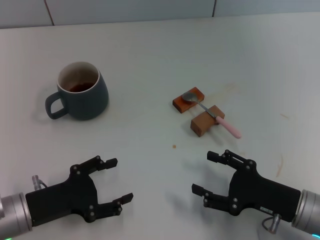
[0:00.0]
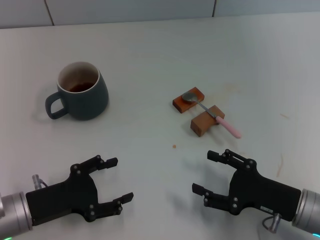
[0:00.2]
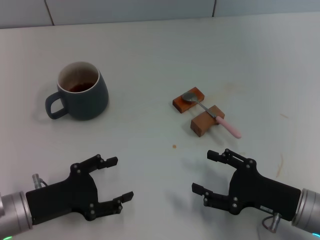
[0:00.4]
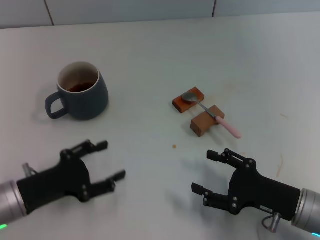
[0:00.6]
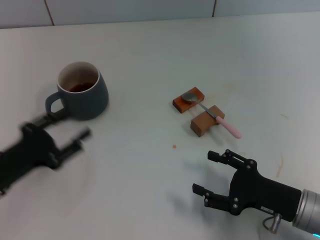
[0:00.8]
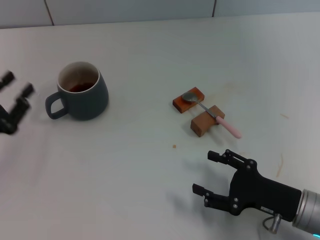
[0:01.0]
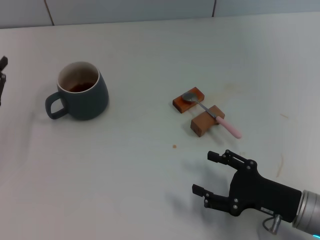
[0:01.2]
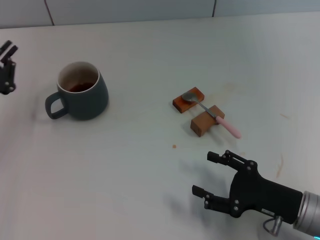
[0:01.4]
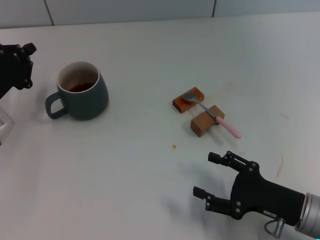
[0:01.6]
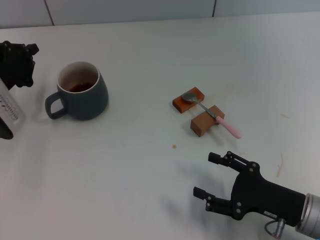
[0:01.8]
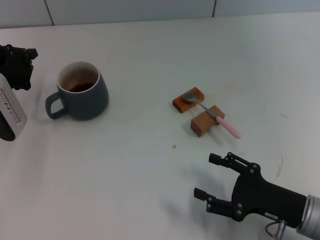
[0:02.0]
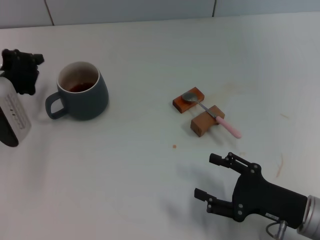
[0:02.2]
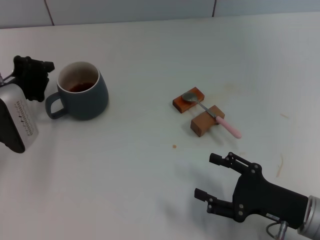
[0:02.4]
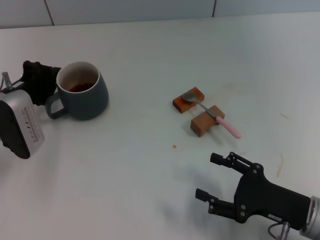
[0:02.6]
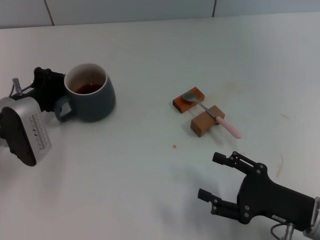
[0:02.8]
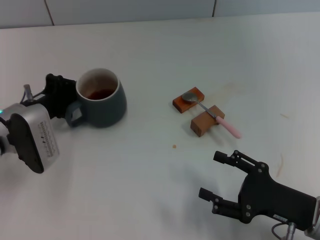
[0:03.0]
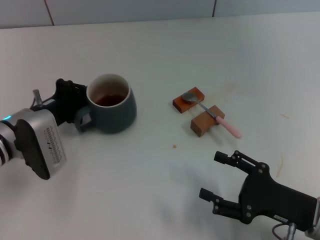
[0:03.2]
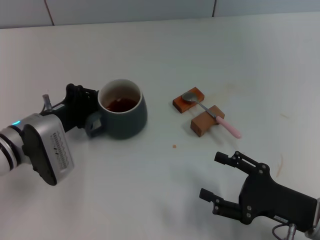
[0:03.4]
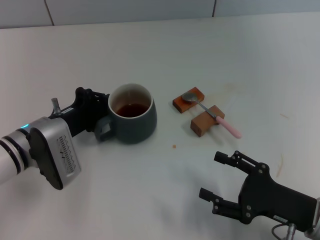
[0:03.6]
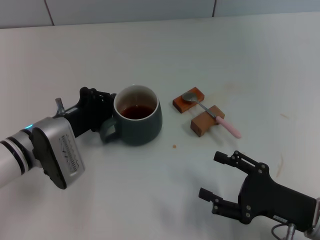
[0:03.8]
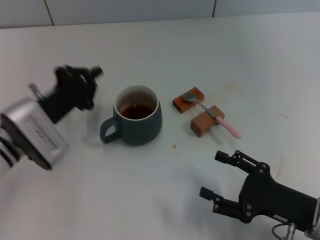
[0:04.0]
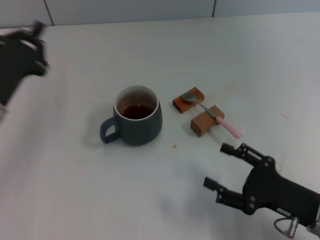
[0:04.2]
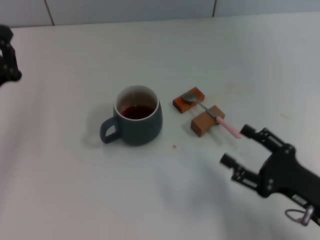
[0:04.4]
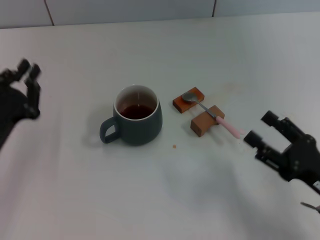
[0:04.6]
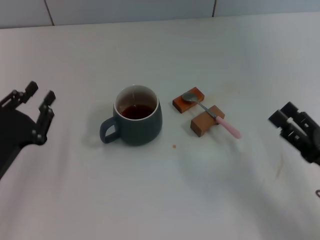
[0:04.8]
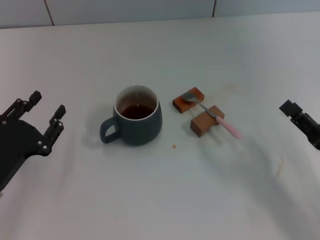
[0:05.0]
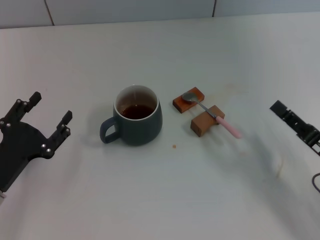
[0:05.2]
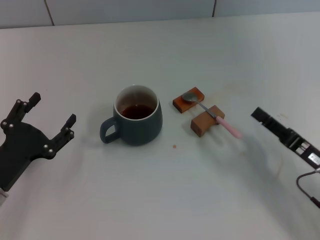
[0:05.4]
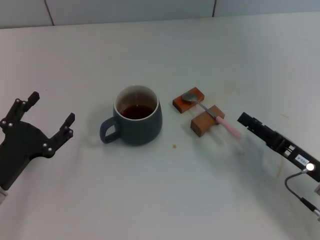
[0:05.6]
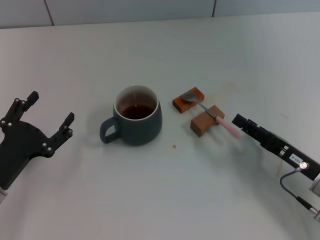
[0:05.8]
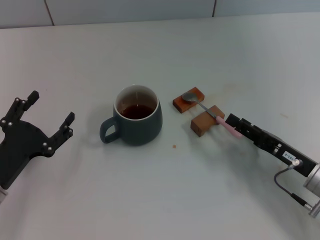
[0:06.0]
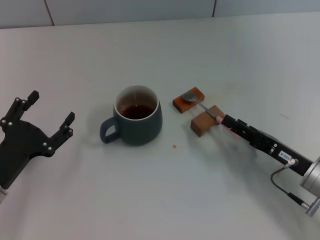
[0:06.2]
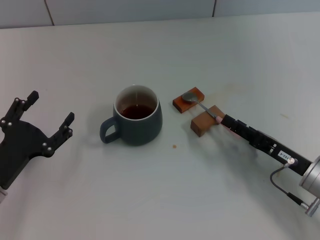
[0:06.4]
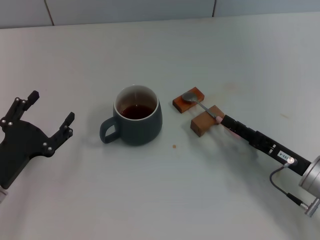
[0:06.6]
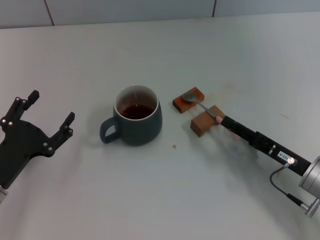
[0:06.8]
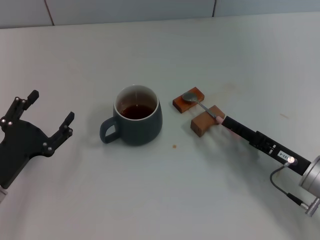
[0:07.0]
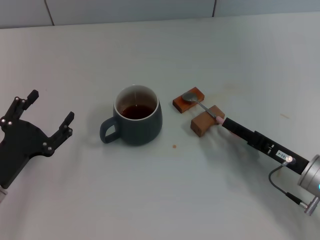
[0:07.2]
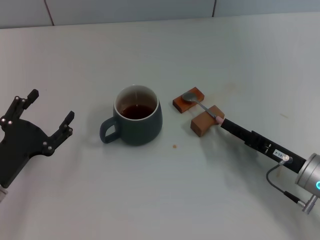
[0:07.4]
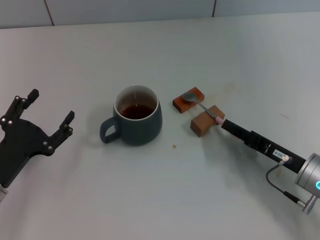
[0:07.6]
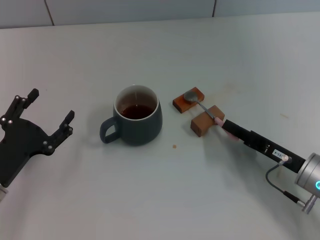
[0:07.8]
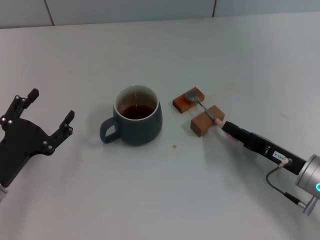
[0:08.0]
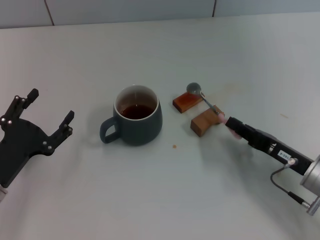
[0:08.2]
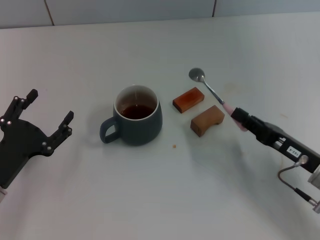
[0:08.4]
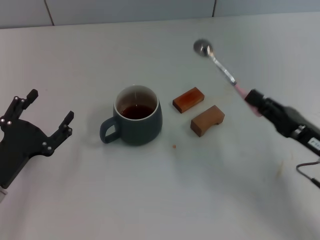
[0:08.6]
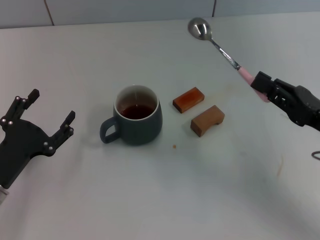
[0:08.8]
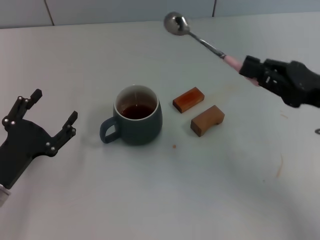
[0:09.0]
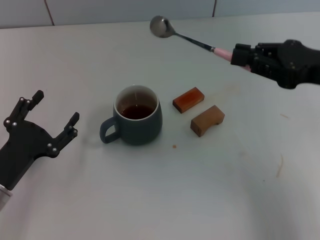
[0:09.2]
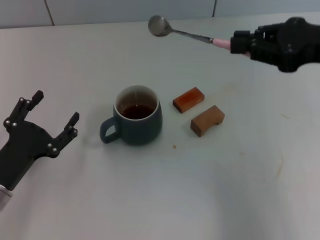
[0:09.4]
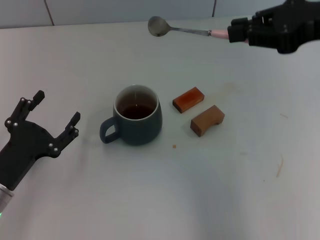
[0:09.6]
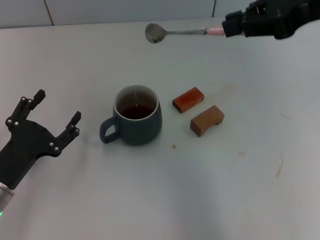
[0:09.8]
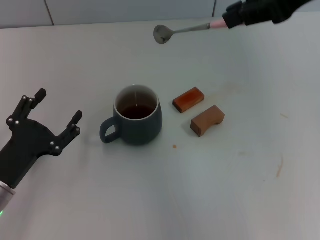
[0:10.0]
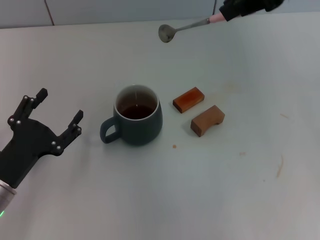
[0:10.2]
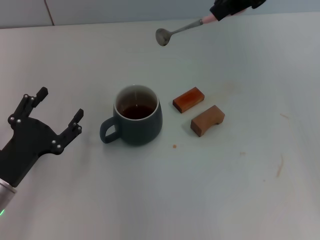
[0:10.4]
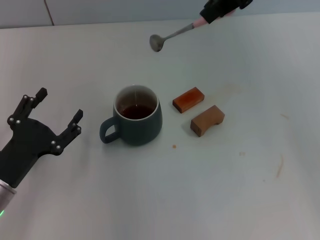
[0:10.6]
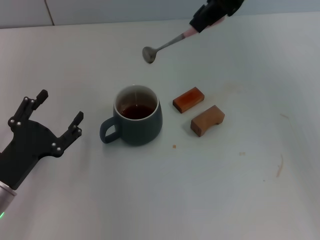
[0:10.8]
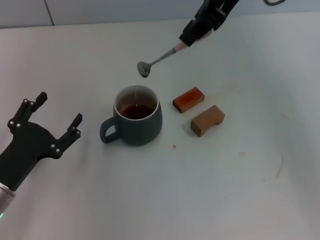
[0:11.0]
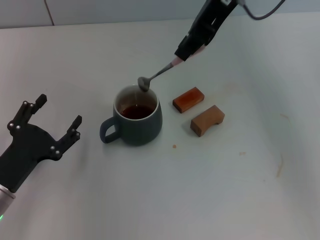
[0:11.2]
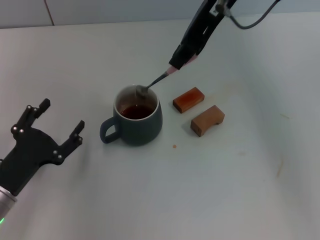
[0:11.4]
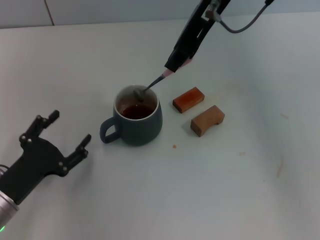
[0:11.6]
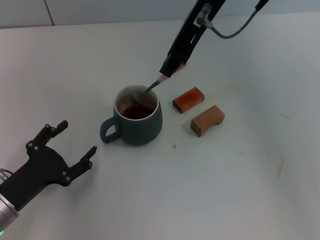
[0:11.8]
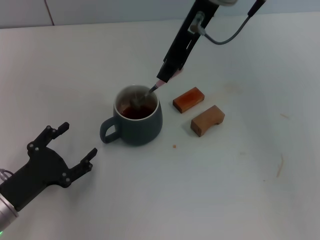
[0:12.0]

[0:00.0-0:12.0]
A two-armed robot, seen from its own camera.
Task of the whole recording: Move the grey cup to the center, lift the pink spoon, stir it three times in the cup, and put the spoon into the cup.
Step, 0:00.0 to 0:04.0: Move the cup with coffee to the center of view with the left gripper.
Step, 0:04.2 to 0:08.6: Pick up the spoon with the right gripper.
0:00.0 to 0:01.6: The left gripper heads forward and upward, covering approximately 15 cm, and closes up.
0:01.6 to 0:03.0: The left gripper moves some 5 cm.
0:03.0 to 0:04.4: The left gripper moves backward, approximately 5 cm.
0:04.4 to 0:06.0: The right gripper goes roughly 5 cm forward, while the left gripper heads backward, covering roughly 5 cm, and opens.
0:06.0 to 0:07.6: The right gripper closes up.
0:07.6 to 0:09.0: The right gripper travels upward by about 15 cm.
0:09.0 to 0:10.4: The right gripper shifts roughly 25 cm upward, to the left and forward.
0:10.4 to 0:12.0: The right gripper moves to the left and downward, about 15 cm.

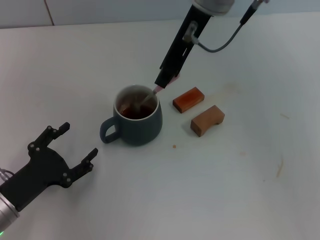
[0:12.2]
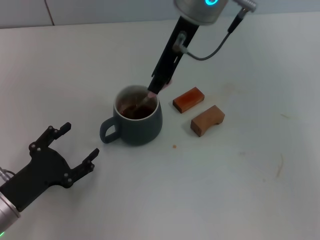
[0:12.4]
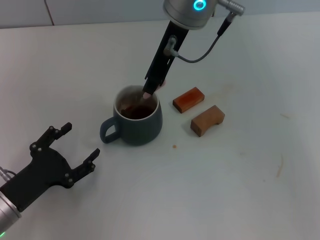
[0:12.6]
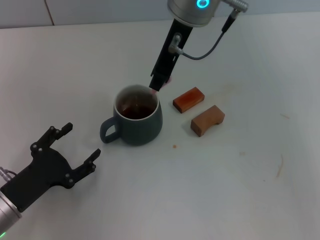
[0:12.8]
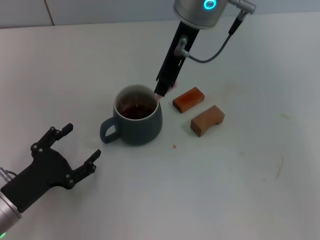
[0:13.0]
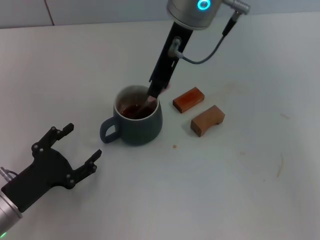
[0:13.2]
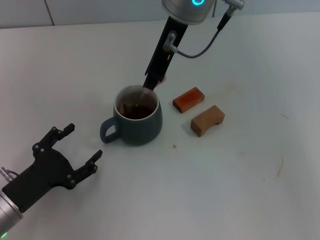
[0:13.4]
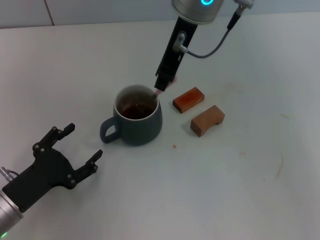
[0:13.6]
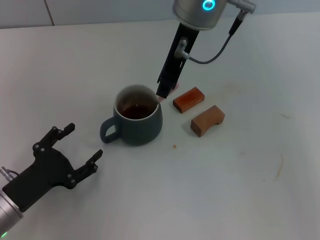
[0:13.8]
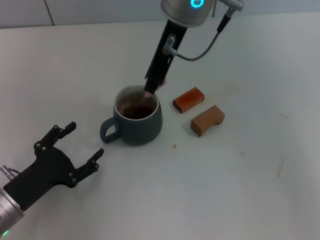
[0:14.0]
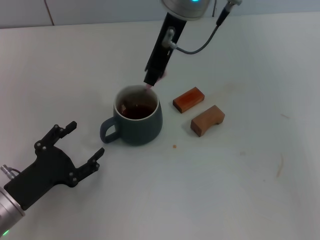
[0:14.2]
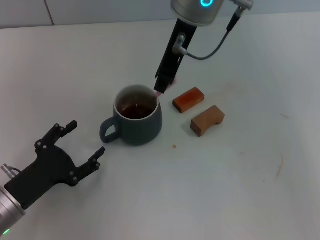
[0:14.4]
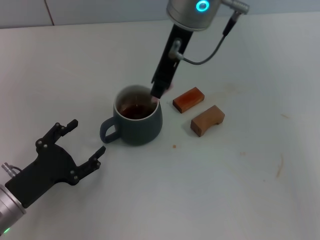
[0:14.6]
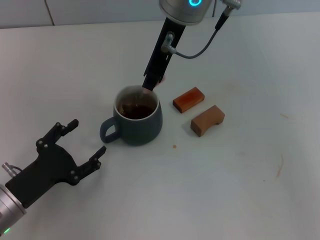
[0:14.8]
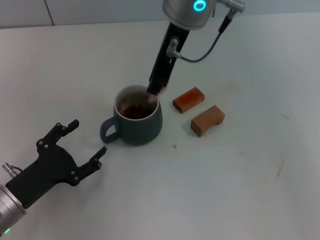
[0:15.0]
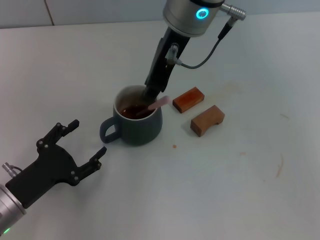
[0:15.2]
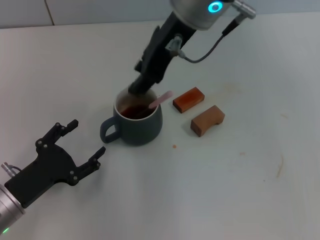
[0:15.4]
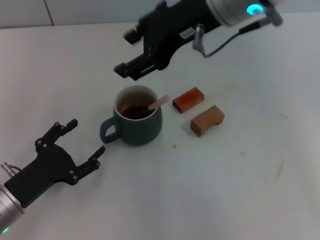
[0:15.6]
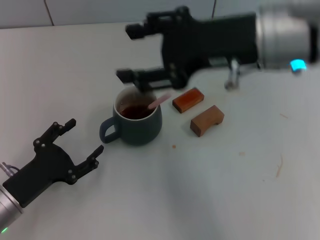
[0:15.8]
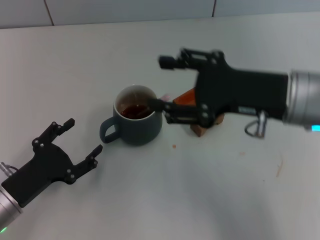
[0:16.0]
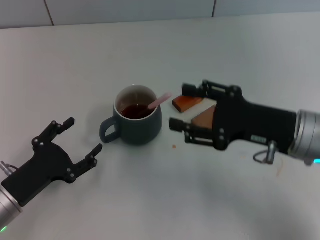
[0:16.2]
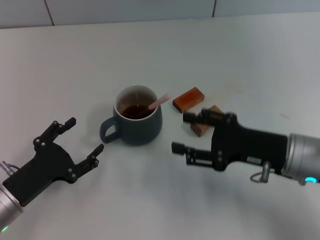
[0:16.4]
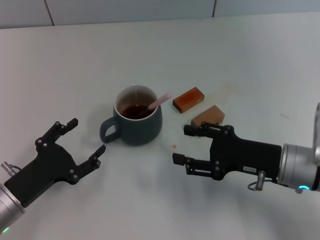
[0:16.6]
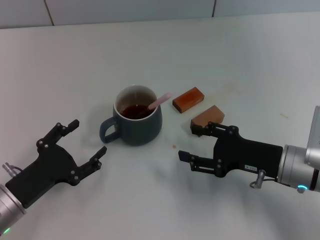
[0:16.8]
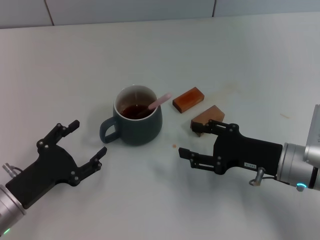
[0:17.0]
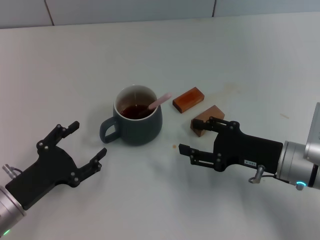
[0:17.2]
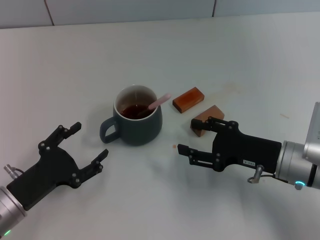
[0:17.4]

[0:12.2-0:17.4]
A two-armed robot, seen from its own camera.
Task of the whole recording: Move the grey cup to the center, lift the pink spoon, stir it three times in the cup, and put the spoon into the cup.
Step, 0:12.2 to 0:15.4: Stir the coffee in the cup with the right gripper.
0:12.2 to 0:14.0: The grippers stay close to where they were, moving slightly.
0:14.0 to 0:15.6: The right gripper moves to the right and backward, some 10 cm, and opens.
0:15.6 to 0:17.4: The right gripper moves downward and to the right, some 25 cm.

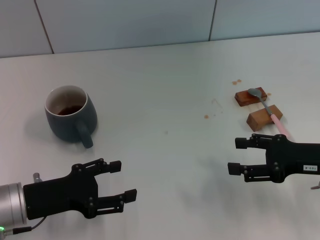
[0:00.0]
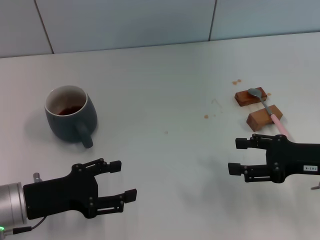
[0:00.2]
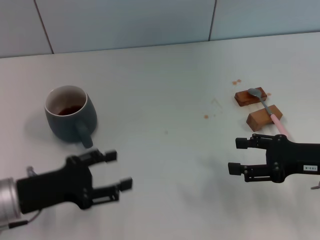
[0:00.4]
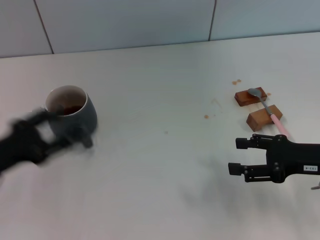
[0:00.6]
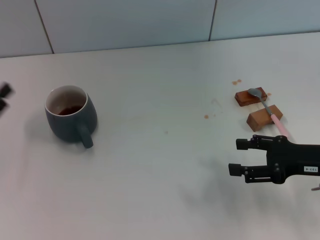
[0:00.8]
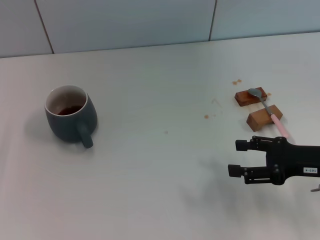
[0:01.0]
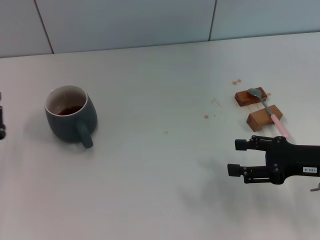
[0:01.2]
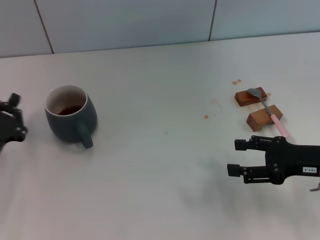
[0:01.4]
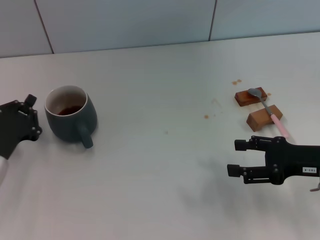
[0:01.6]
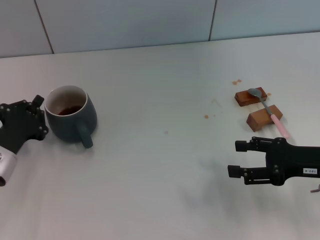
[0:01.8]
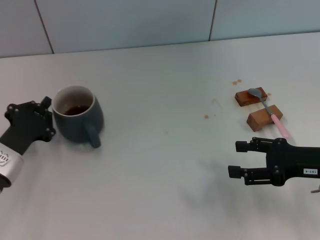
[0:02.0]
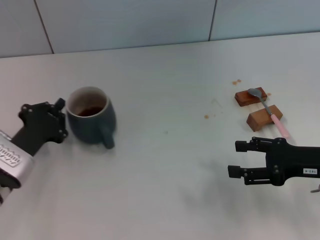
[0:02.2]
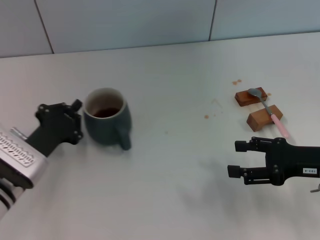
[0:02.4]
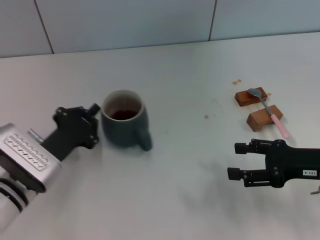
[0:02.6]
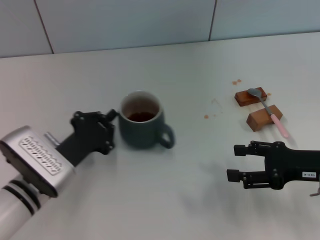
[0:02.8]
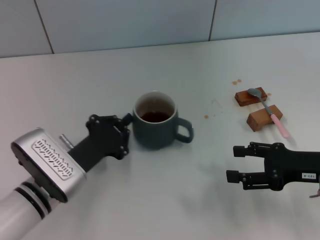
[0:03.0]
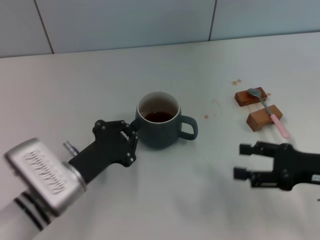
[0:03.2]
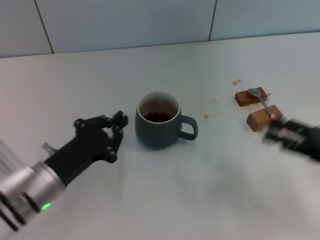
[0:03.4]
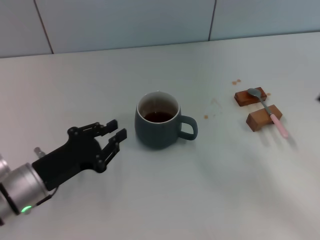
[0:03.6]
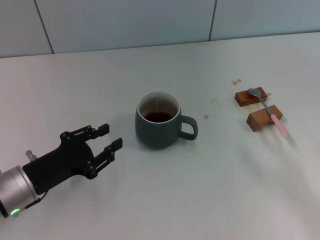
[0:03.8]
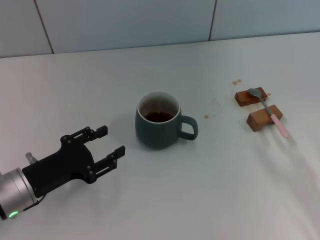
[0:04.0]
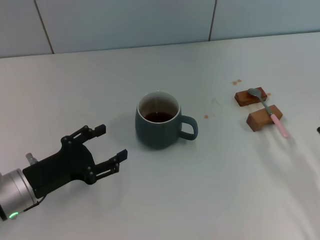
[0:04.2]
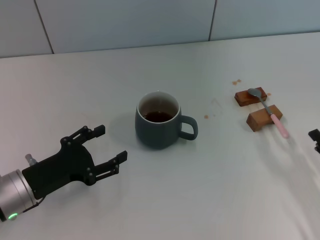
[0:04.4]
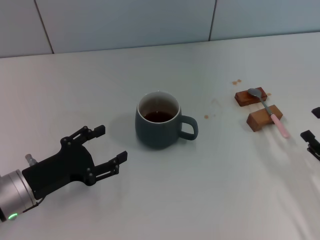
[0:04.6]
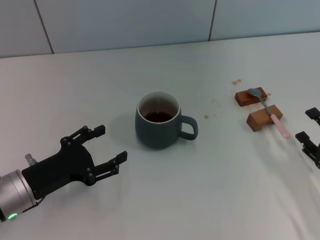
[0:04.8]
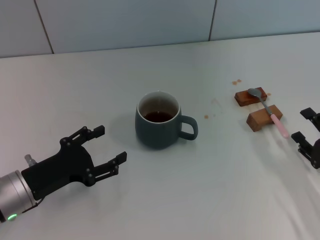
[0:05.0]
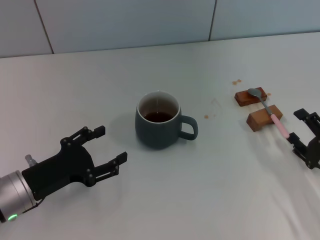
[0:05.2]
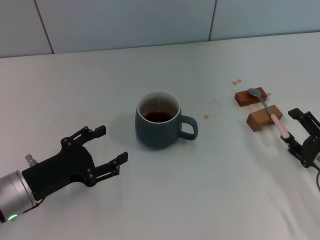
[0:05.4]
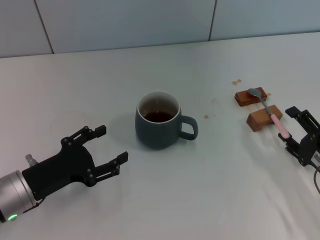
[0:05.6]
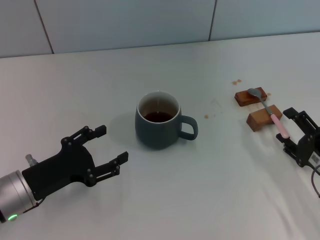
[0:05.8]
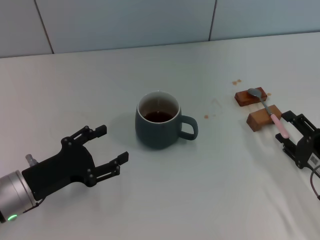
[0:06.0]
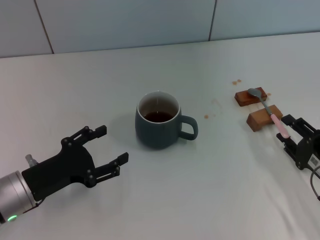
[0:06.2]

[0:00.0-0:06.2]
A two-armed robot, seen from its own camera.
Task of the whole recording: Move the grey cup to the center, lift the pink spoon, stir it three times in the cup, and put the spoon into the cup.
Step, 0:00.0 to 0:03.4: Move the cup with coffee to the center of view with the left gripper.
0:00.0 to 0:01.6: The left gripper closes its fingers.
0:01.6 to 0:03.2: The left gripper travels to the right by approximately 10 cm.
0:03.2 to 0:04.6: The left gripper moves to the left, roughly 5 cm, and opens its fingers; the right gripper is displaced downward and backward by roughly 10 cm.
0:04.6 to 0:06.2: The grippers stay close to where they were, moving slightly.
